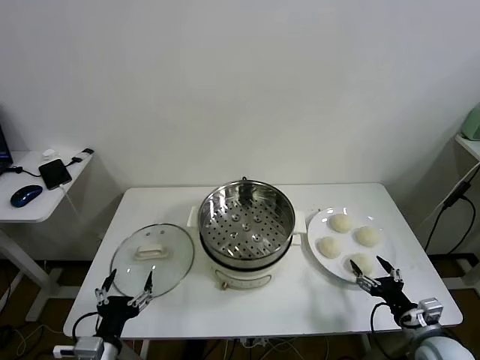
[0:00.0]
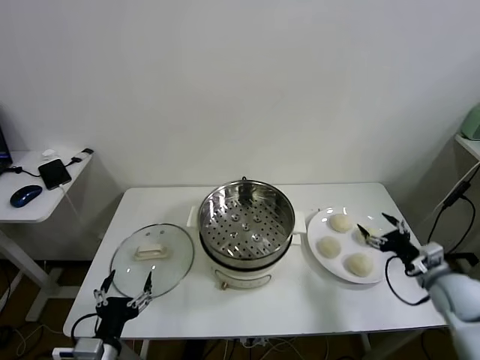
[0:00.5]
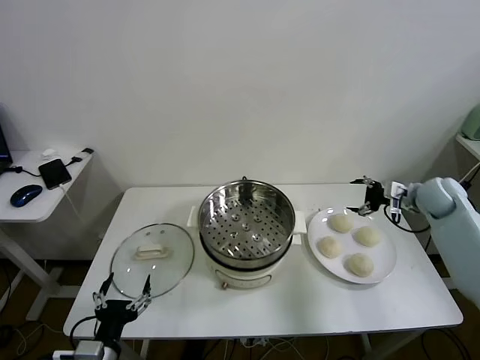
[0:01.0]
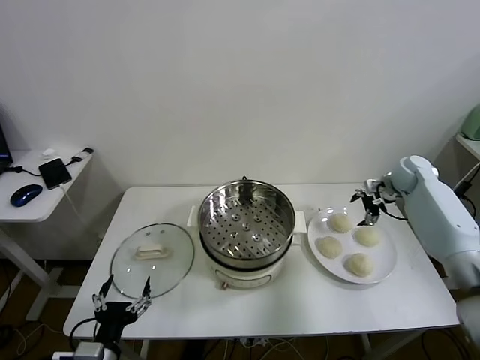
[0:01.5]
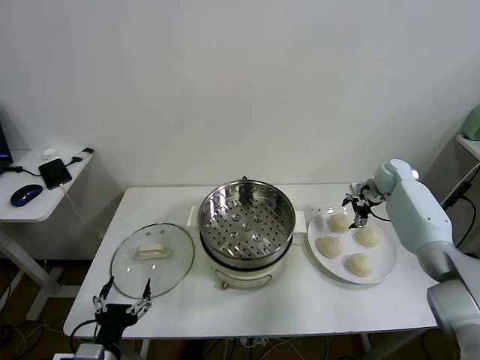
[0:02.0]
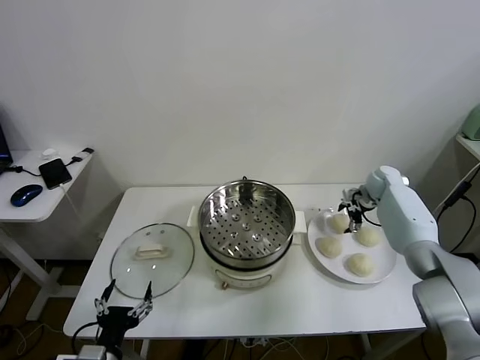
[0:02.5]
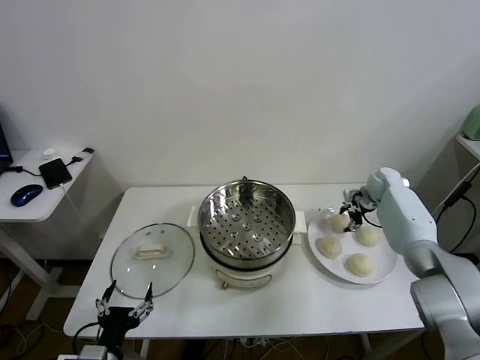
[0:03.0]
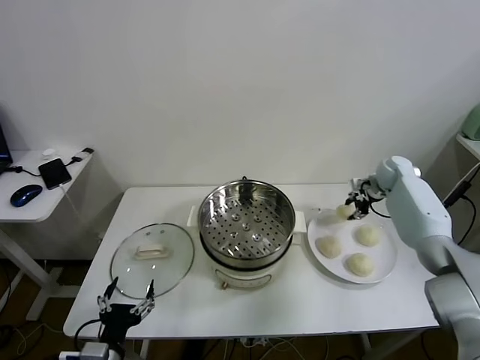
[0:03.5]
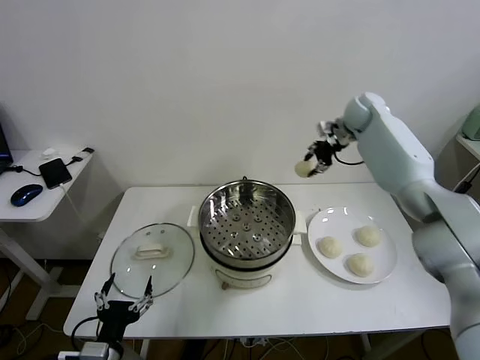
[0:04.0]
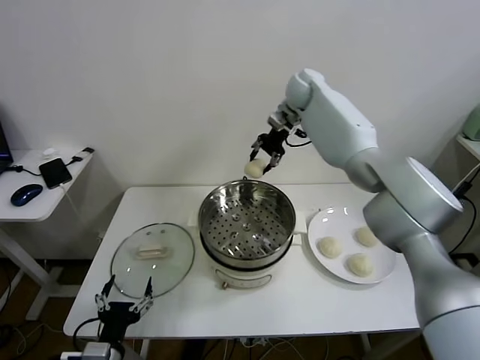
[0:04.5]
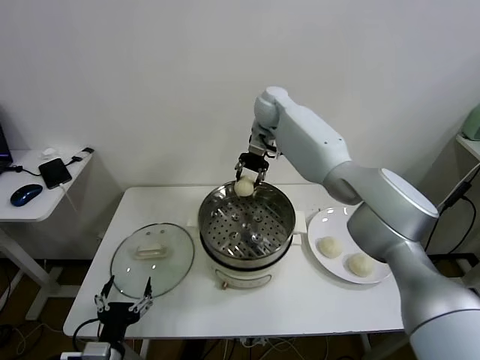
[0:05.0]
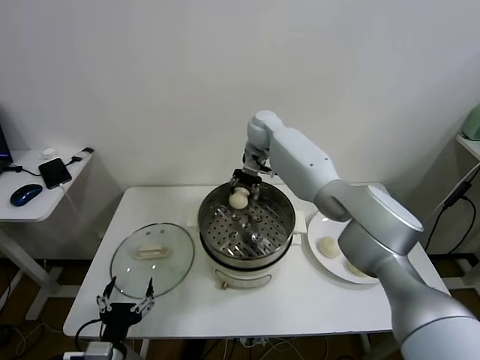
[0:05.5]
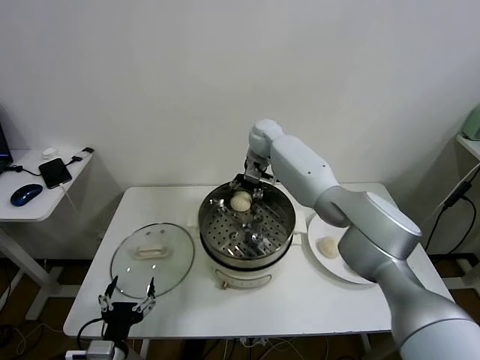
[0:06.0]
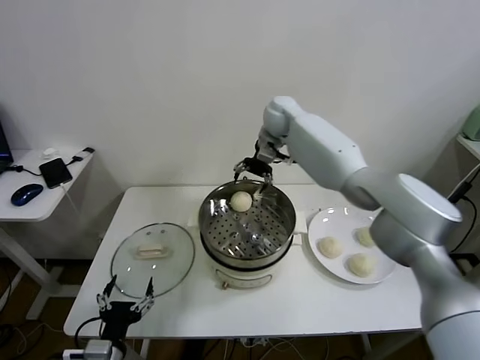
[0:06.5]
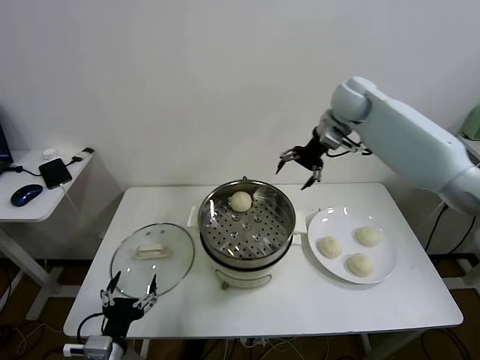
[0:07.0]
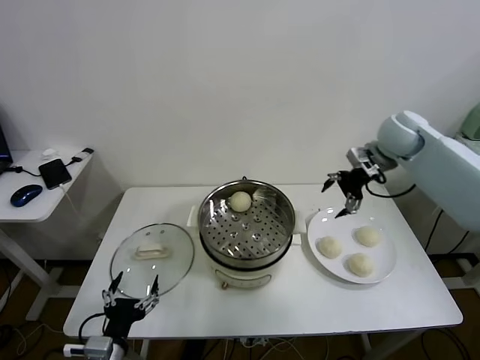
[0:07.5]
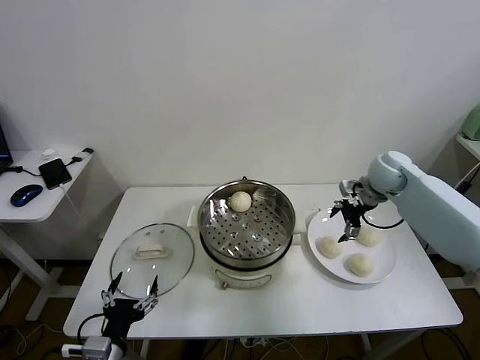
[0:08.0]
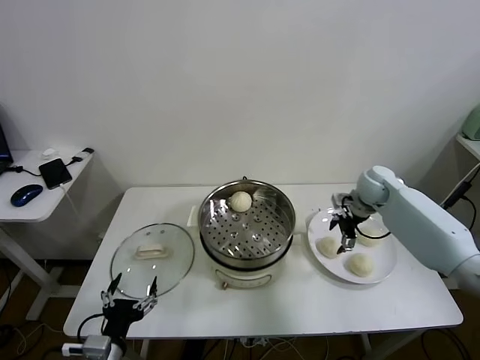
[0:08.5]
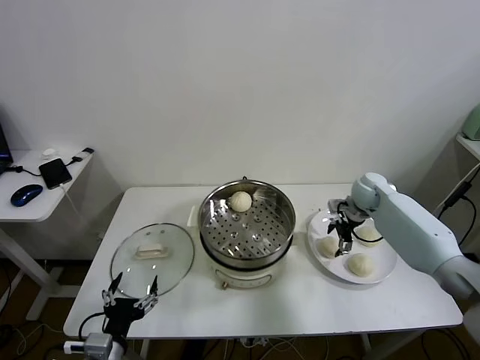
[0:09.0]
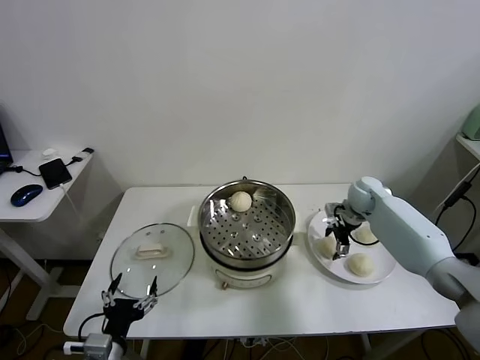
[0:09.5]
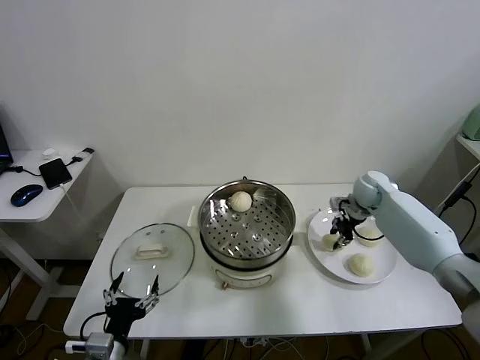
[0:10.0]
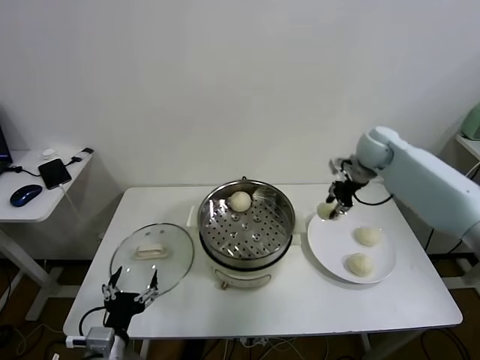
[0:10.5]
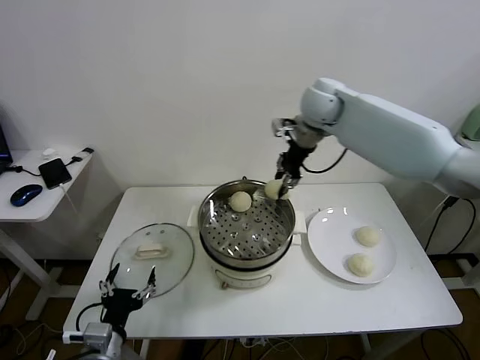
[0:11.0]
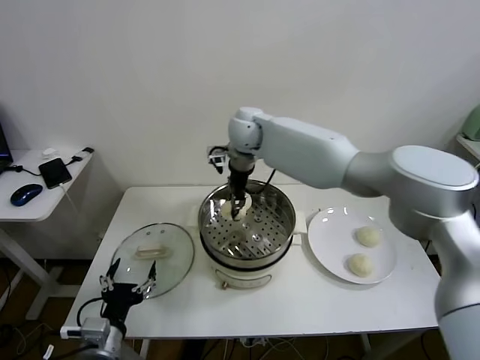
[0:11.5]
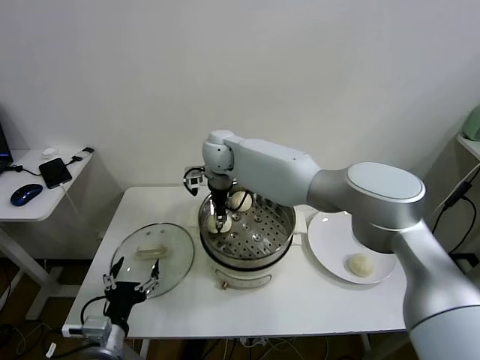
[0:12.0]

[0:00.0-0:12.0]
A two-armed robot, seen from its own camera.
Task of the whole recording: take steamed baozi put them in steamer.
Step, 0.0 to 3.0 s: Grasp the baozi in the plate with right gripper.
Step, 3.5 to 6.0 s: Place the baozi on the steamer with right gripper.
Step, 6.5 to 9.5 s: Grasp the baozi in the plate with right gripper.
2.0 to 4.0 s: The right gripper shifts approximately 25 cm upward and to the left, and closes.
4.0 to 6.0 s: The right gripper is displaced to the left and downward by roughly 25 cm, and opens.
6.0 to 8.0 s: The right gripper shifts roughly 30 cm to the right.
8.0 to 10.0 s: The right gripper travels downward by about 5 cm, and closes its fingers.
10.0 to 12.0 s: The right gripper travels to the left by some 40 cm.

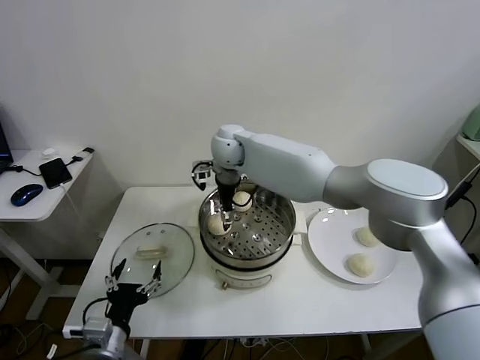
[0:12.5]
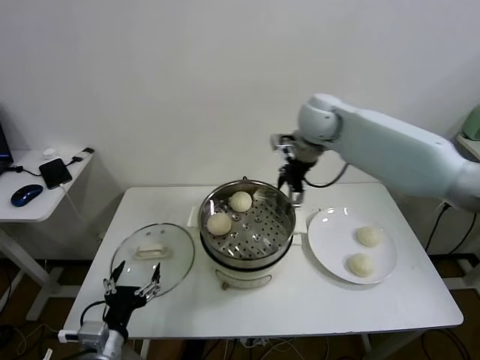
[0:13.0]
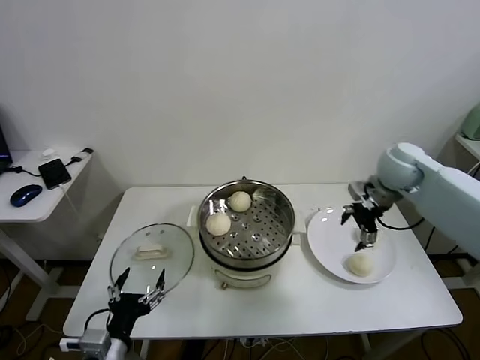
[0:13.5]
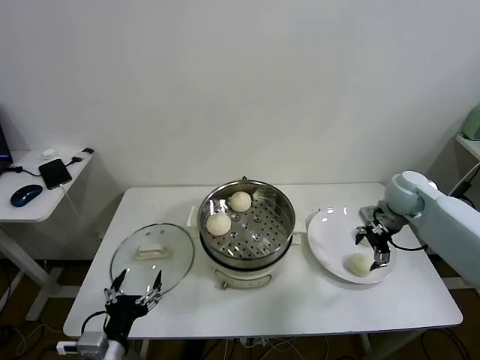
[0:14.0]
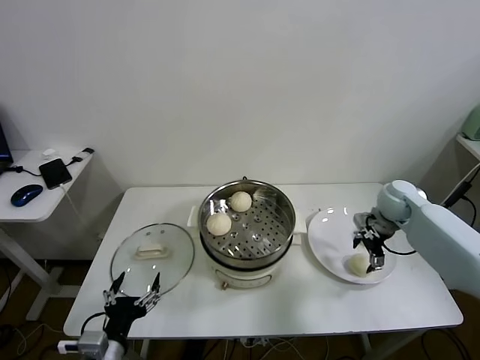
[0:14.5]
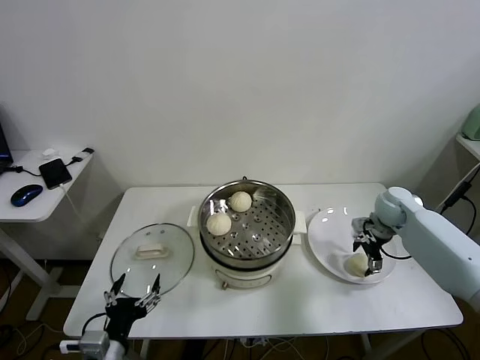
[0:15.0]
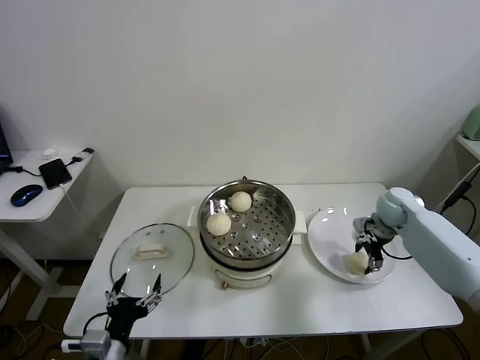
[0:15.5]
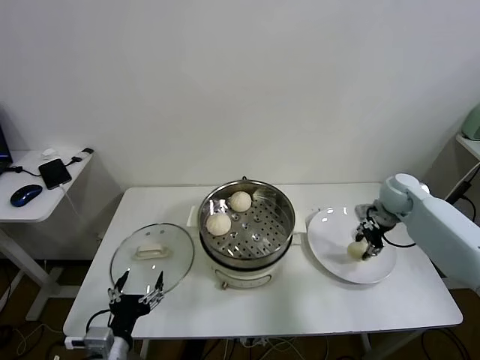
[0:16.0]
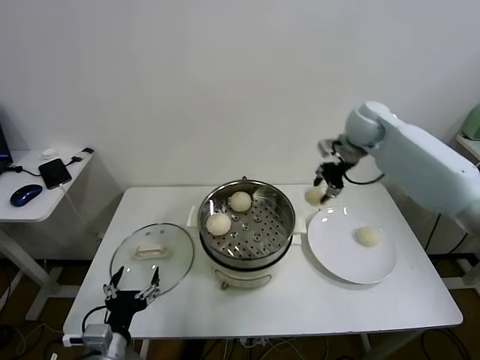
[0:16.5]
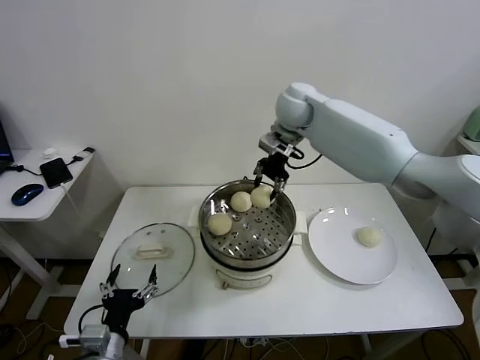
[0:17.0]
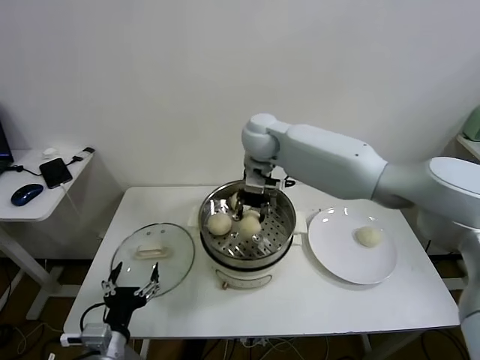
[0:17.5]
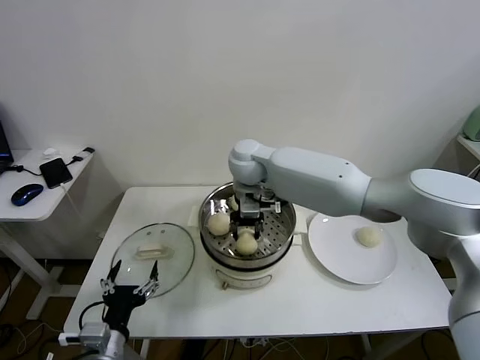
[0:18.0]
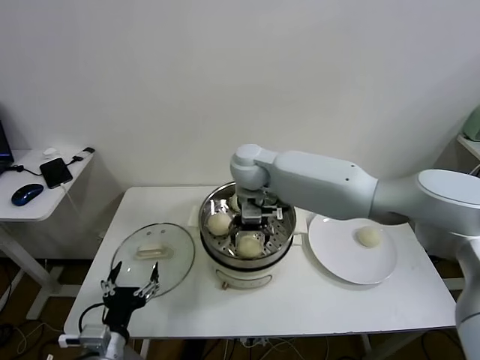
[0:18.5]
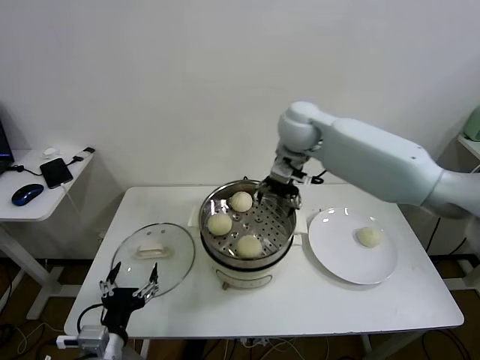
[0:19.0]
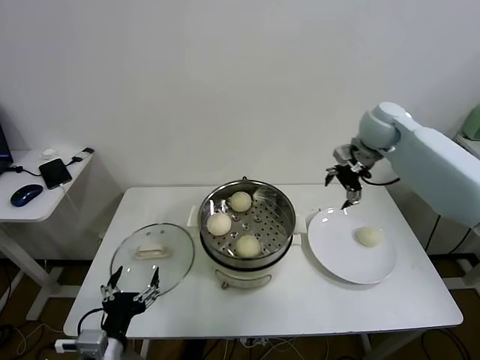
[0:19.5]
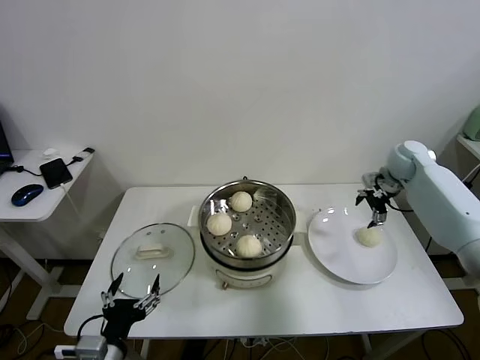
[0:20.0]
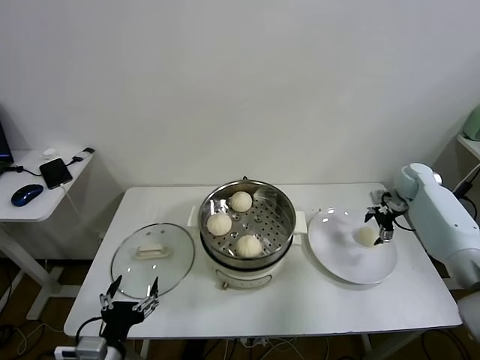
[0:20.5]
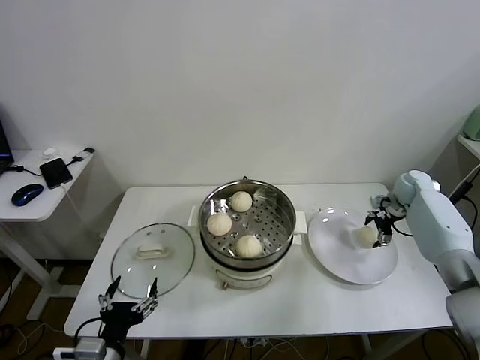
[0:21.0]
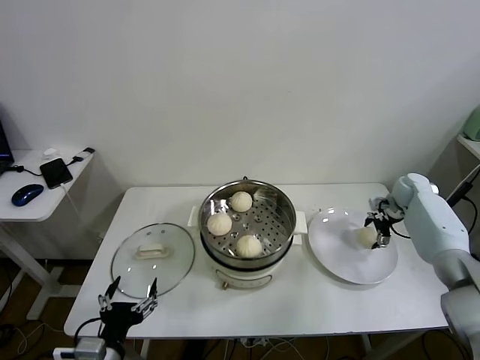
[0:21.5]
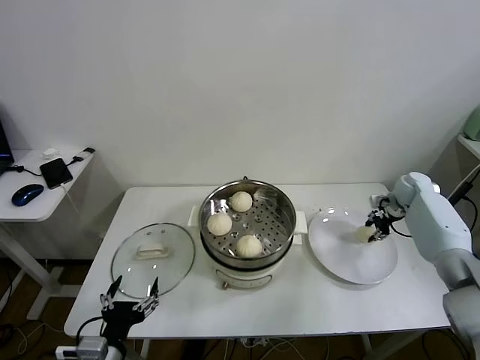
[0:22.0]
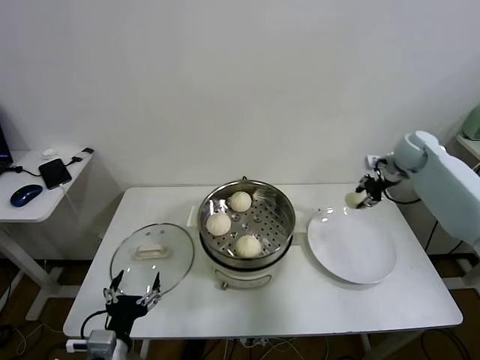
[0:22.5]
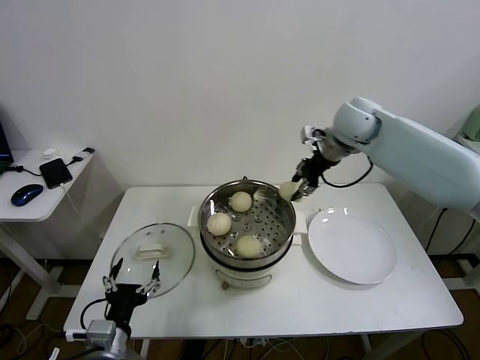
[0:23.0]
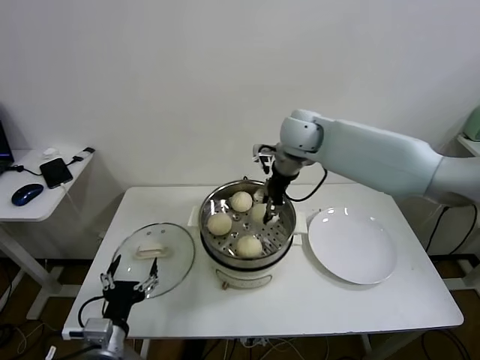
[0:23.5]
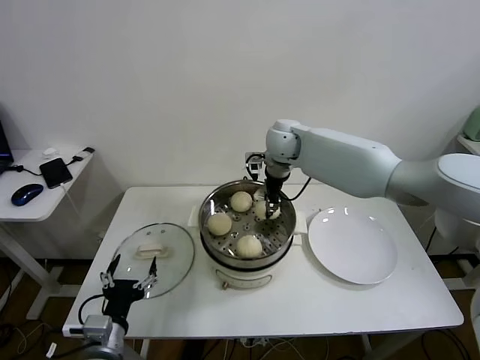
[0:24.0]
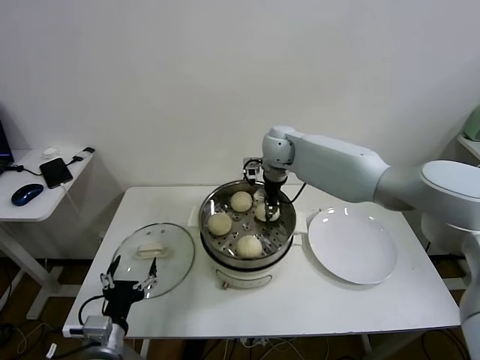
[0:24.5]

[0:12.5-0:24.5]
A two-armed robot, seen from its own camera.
Task of the whole recording: take steamed baozi put them in steamer.
Step, 12.5 to 15.0 s: Grasp the baozi in the plate with right gripper.
Step, 15.5 to 18.5 s: Place the baozi on the steamer with right gripper.
Step, 19.0 to 21.5 s: Grasp the baozi in the plate with right gripper.
12.5 to 14.5 s: The right gripper is displaced to the right by roughly 40 cm.
14.5 to 16.5 s: The right gripper heads upward, to the left and forward, covering approximately 25 cm, and closes.
16.5 to 18.5 s: The right gripper is displaced to the left by roughly 25 cm, and opens up.
18.5 to 20.5 s: The right gripper heads to the right, covering some 40 cm.
20.5 to 22.5 s: The right gripper shifts some 10 cm upward, and closes its fingers.
22.5 to 24.5 s: The right gripper moves to the left, approximately 35 cm.

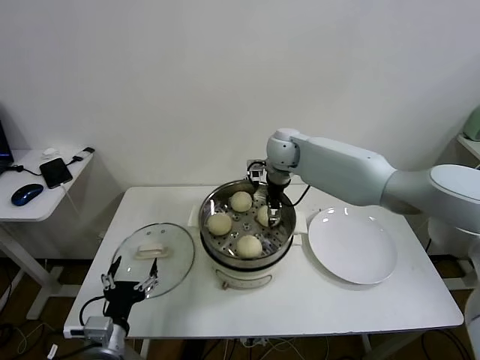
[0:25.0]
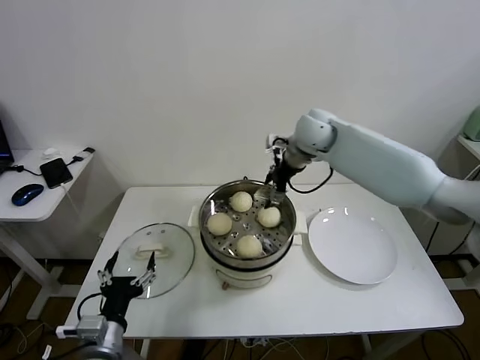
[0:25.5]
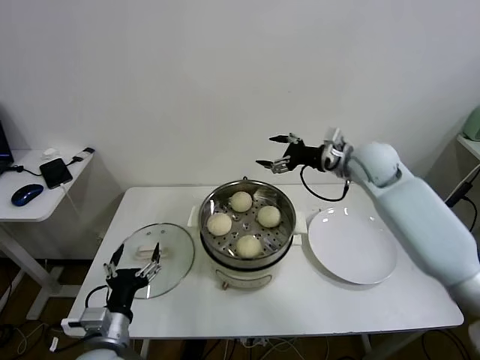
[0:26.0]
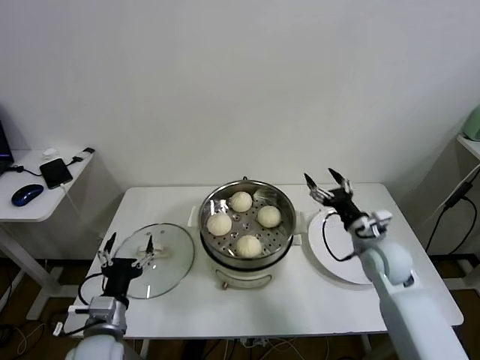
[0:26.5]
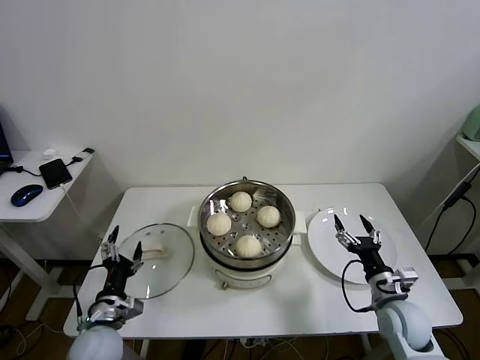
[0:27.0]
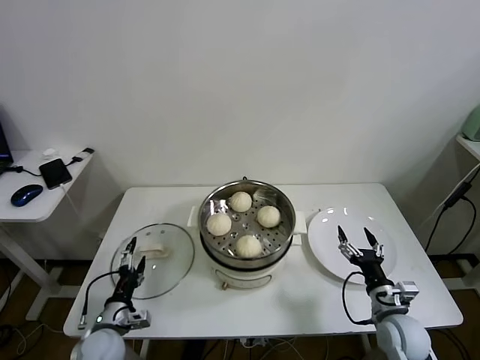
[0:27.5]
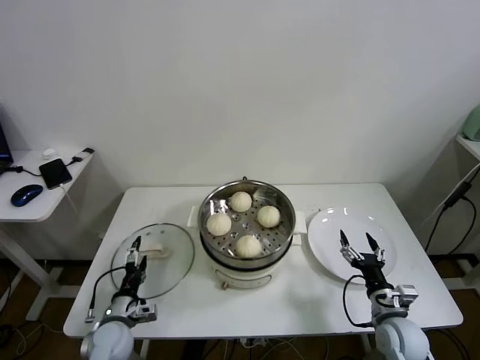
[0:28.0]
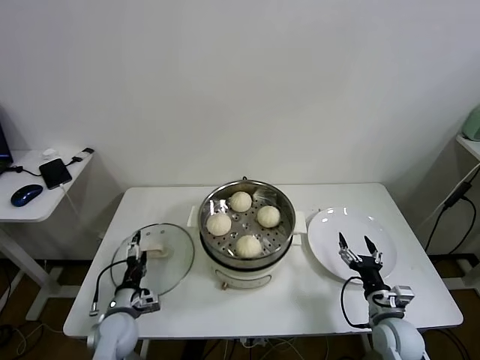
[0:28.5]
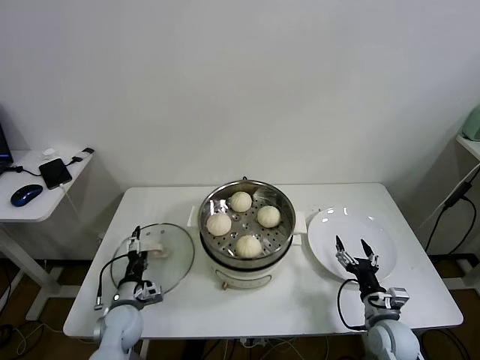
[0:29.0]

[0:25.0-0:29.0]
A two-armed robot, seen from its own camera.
Task of the whole recording: take steamed baozi put them in steamer.
25.0 to 27.0 s: The right gripper is displaced backward, downward and to the right by some 50 cm. The left gripper goes about 10 cm forward and downward.
27.0 to 29.0 s: The right gripper is displaced downward by some 5 cm, while the left gripper travels downward and forward by about 10 cm.
